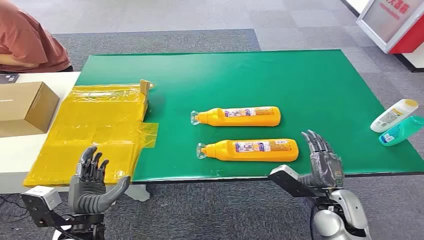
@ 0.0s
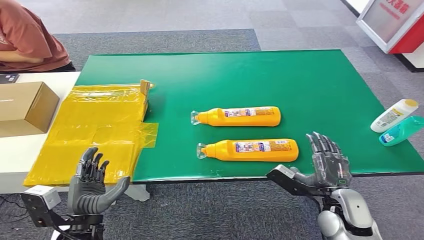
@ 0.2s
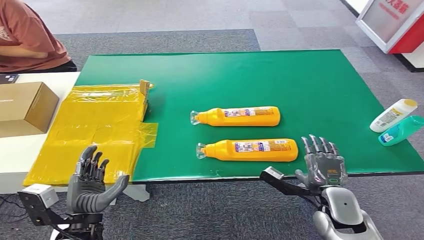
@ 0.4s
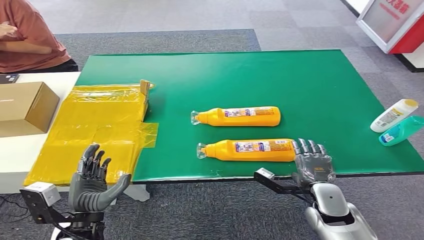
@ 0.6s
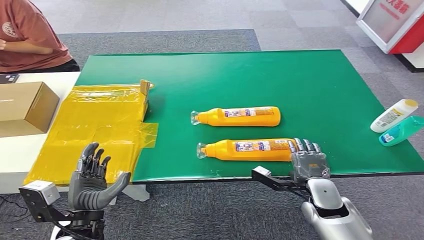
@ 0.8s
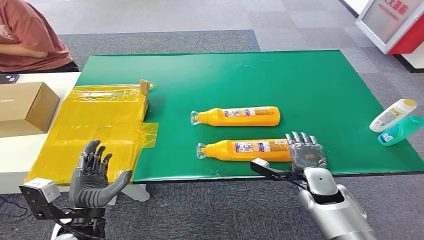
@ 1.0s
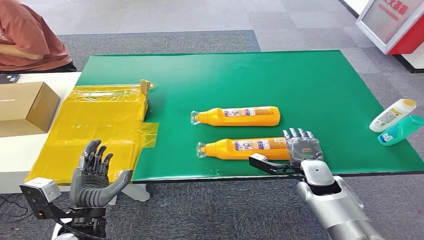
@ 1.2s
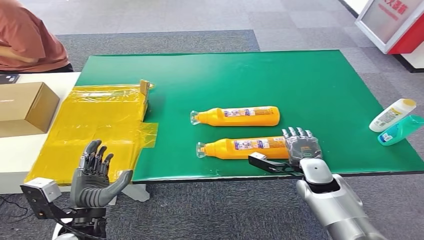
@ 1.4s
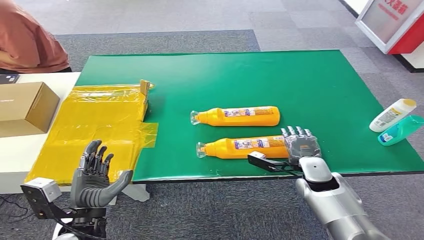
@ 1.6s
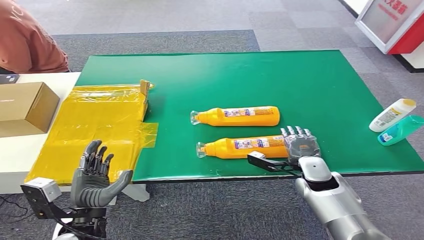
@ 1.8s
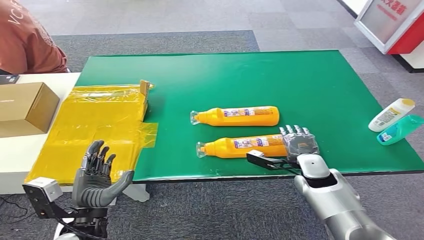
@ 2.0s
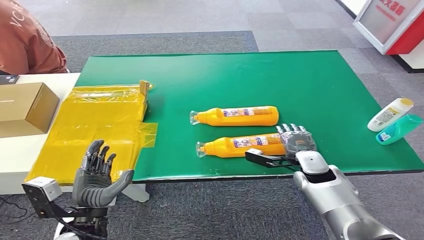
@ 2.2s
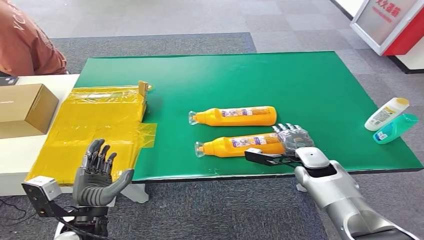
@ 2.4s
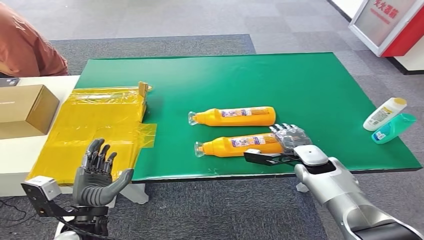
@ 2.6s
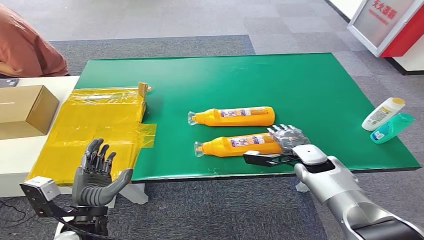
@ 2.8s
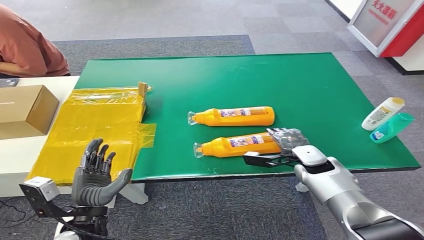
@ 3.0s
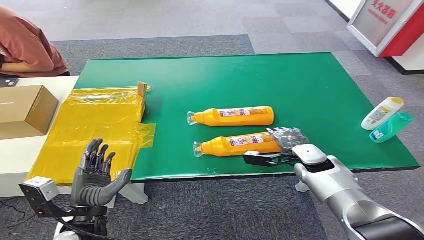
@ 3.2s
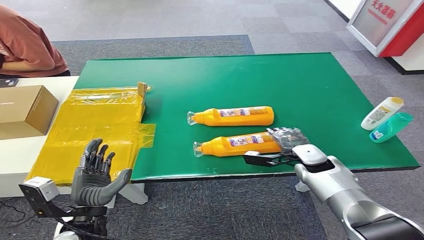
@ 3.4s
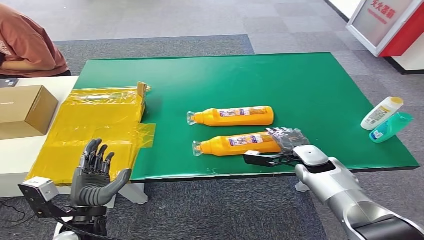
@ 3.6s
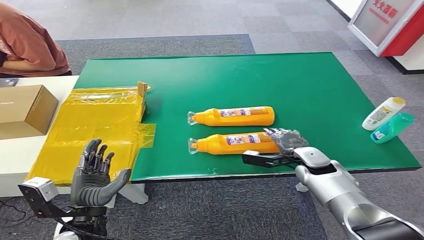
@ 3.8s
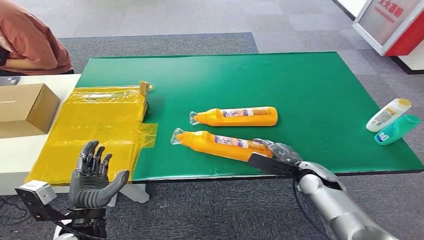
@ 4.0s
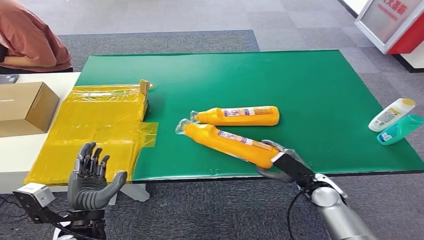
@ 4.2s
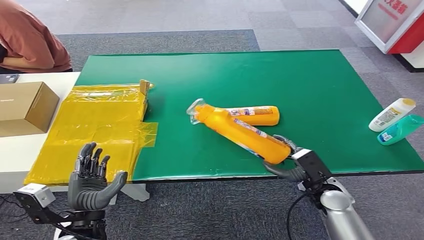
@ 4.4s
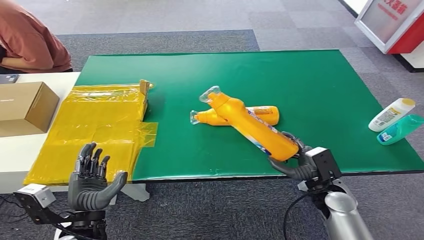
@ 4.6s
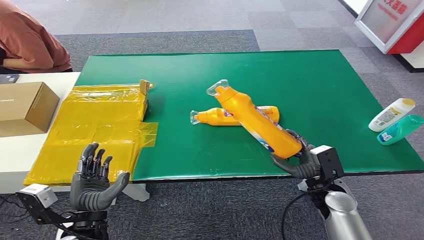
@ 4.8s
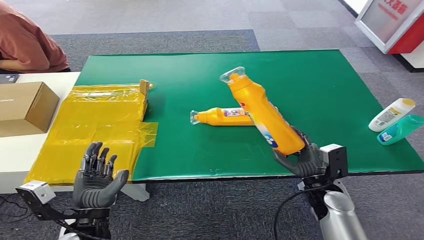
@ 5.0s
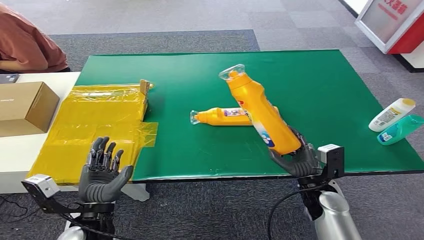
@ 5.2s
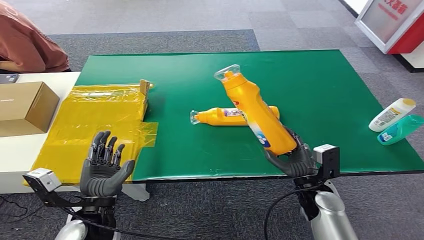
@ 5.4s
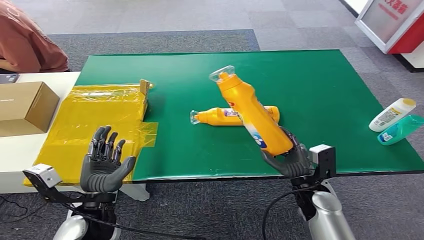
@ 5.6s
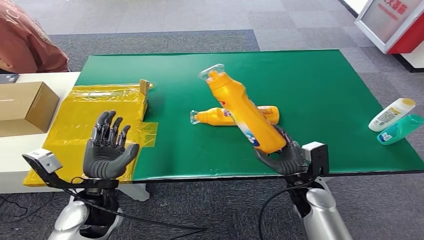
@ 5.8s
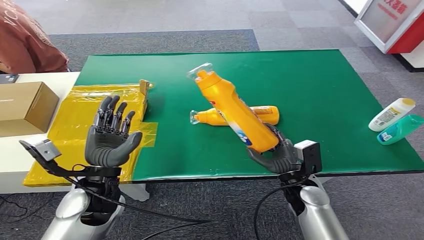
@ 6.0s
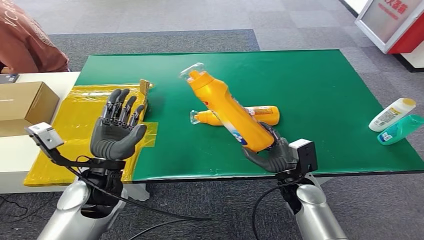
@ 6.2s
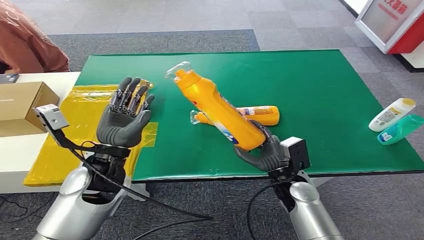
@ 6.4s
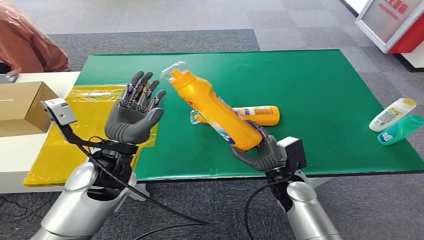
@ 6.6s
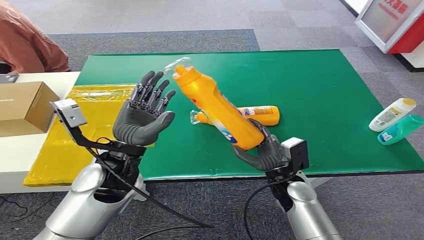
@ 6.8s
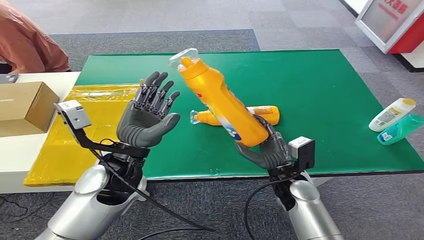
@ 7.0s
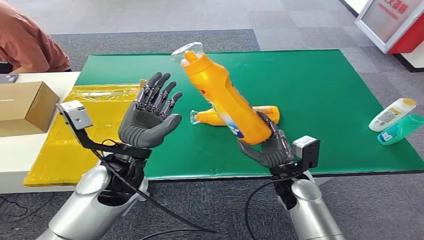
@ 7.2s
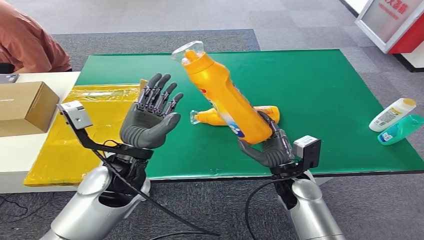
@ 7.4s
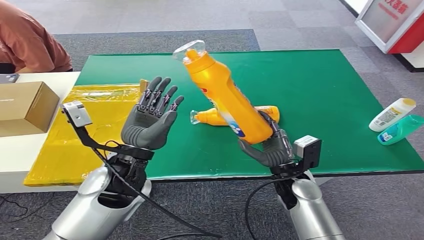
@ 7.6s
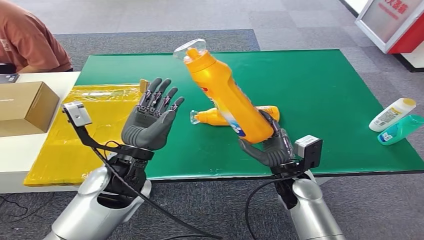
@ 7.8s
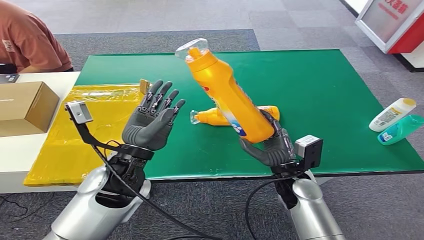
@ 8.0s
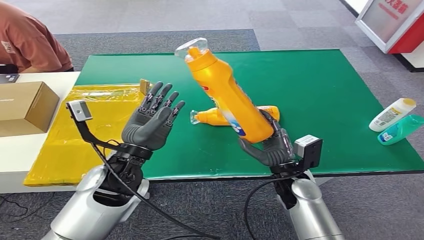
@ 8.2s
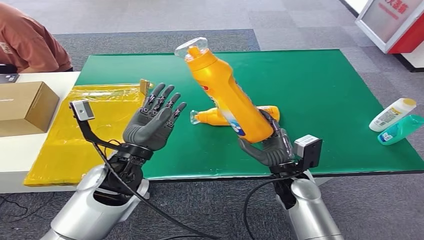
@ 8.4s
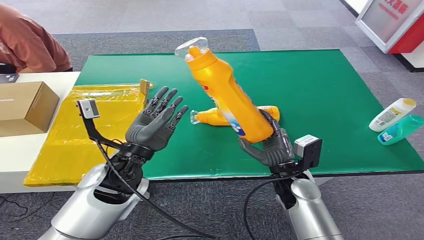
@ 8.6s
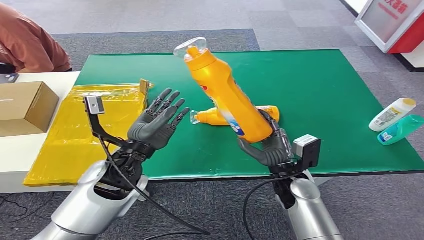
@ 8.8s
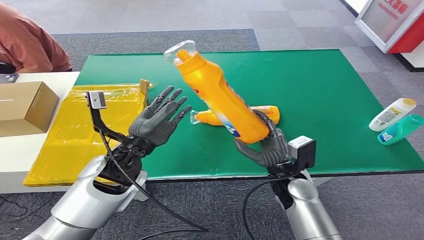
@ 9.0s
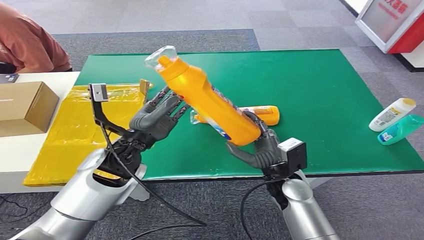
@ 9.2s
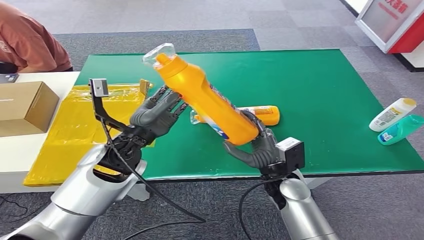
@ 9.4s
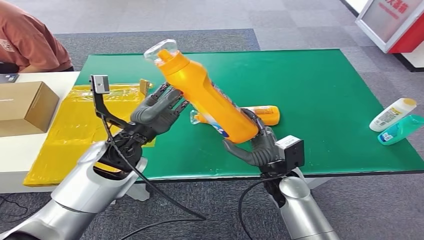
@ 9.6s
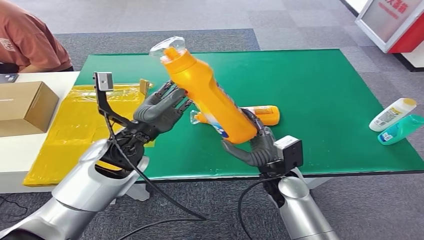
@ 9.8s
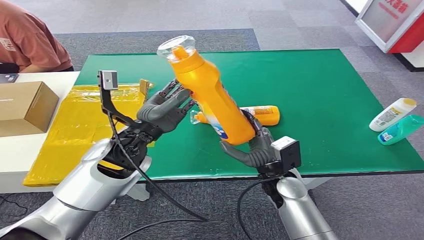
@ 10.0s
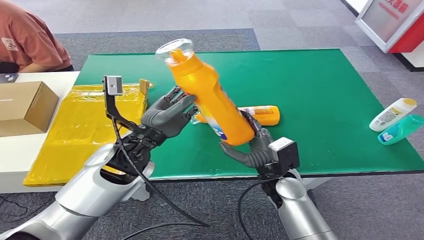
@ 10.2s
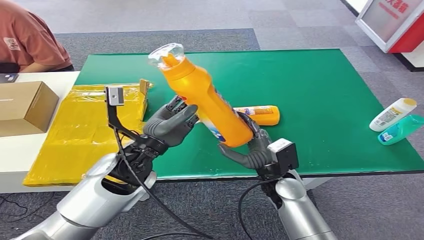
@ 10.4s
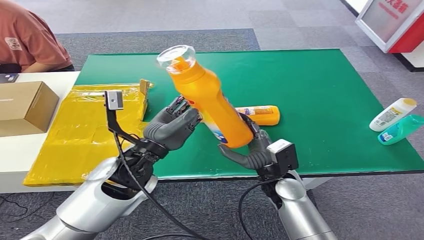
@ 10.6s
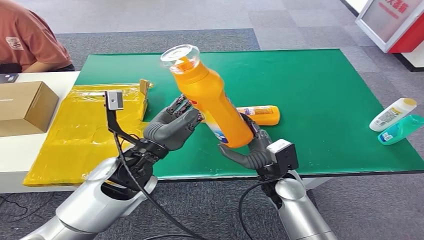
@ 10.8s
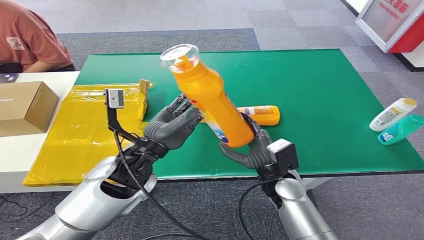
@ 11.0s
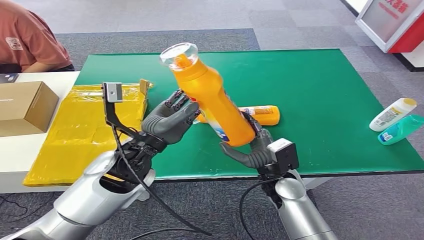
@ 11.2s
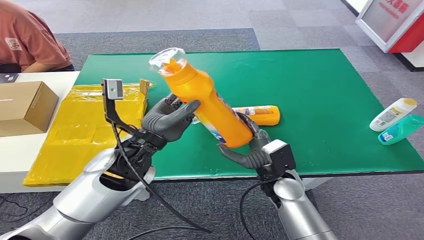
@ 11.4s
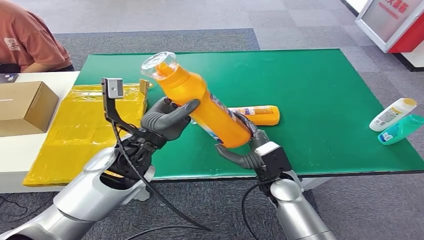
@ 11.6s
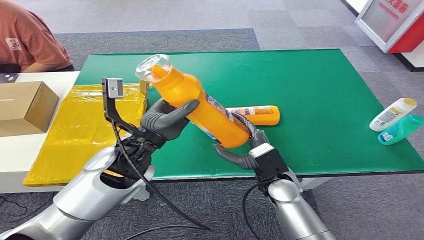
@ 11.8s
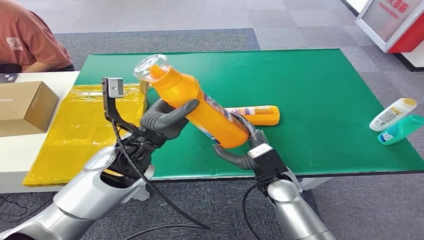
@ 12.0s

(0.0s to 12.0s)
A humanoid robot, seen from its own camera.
Step, 0.0s - 6.0s: Pick up the bottle from the table.
4.4s - 6.0s: The right hand is displaced to the left by approximately 5 cm; the left hand travels forward and upward by approximately 10 cm.
6.0s - 7.6s: The left hand moves to the right and upward, roughly 10 cm.
9.0s - 12.0s: There are only small adjustments of the hands.

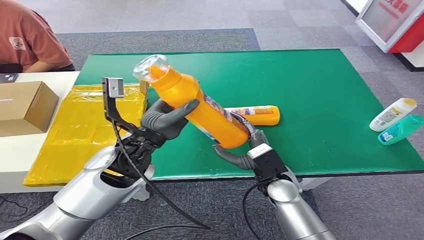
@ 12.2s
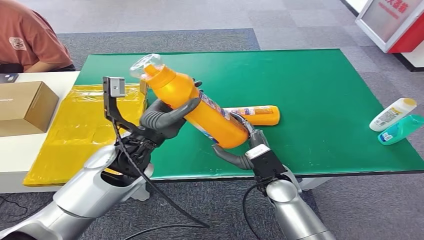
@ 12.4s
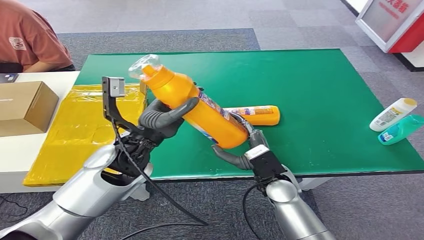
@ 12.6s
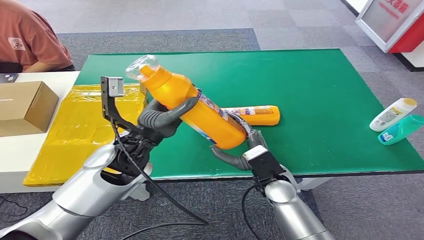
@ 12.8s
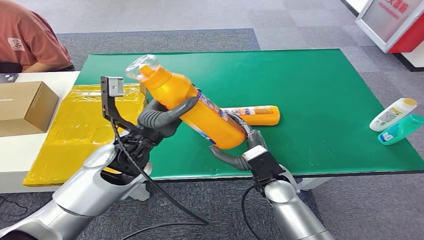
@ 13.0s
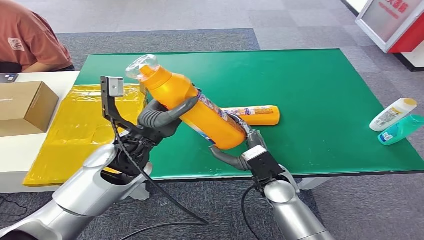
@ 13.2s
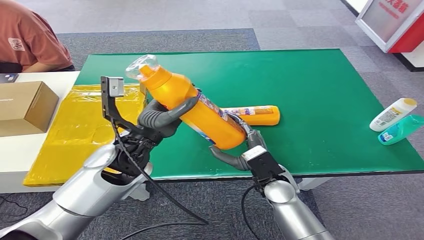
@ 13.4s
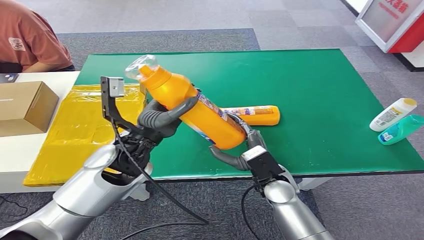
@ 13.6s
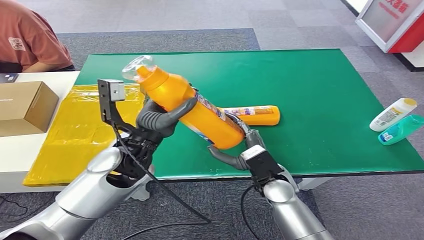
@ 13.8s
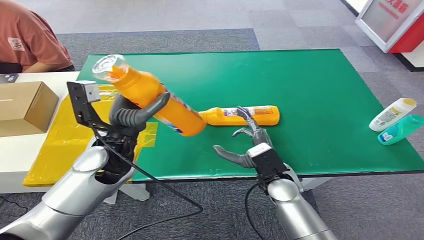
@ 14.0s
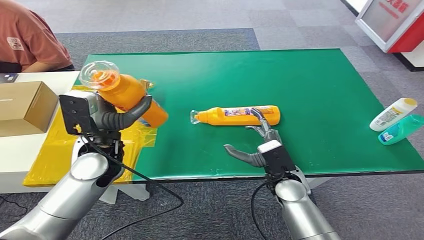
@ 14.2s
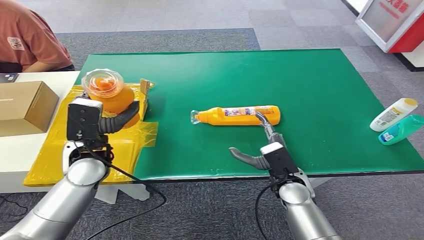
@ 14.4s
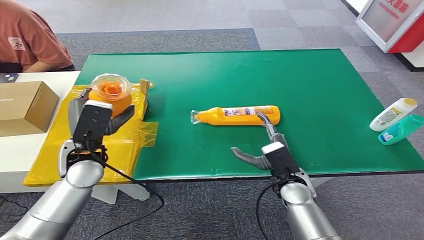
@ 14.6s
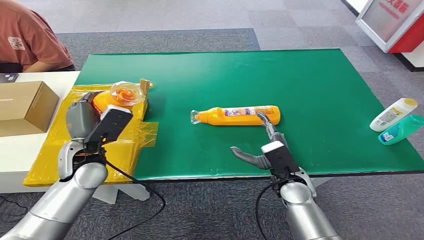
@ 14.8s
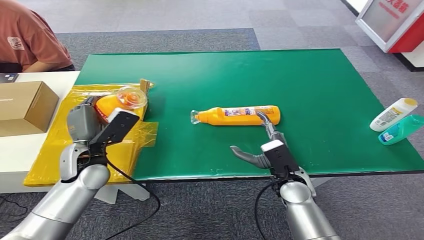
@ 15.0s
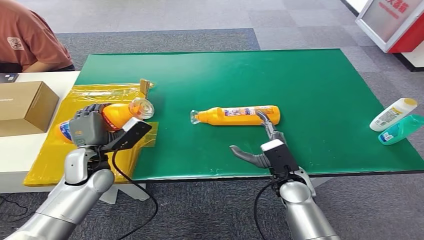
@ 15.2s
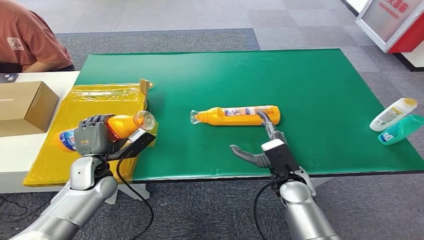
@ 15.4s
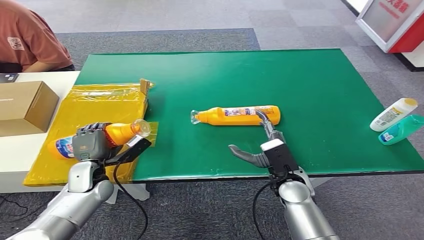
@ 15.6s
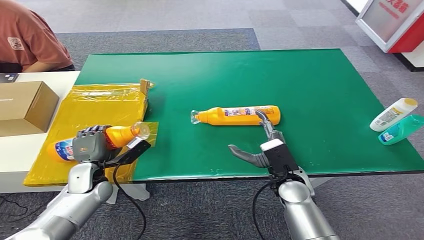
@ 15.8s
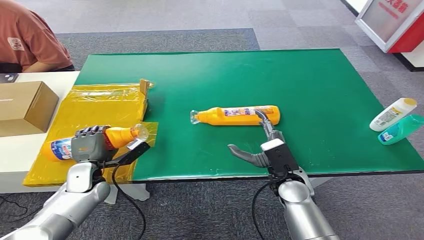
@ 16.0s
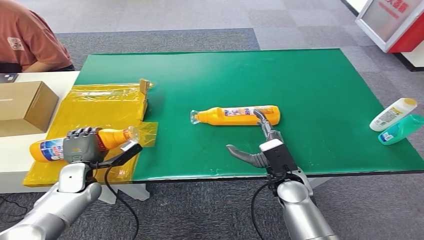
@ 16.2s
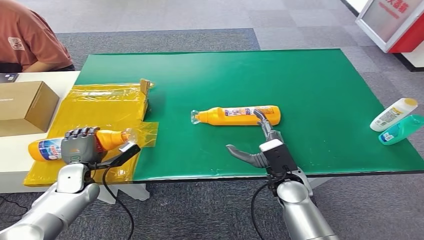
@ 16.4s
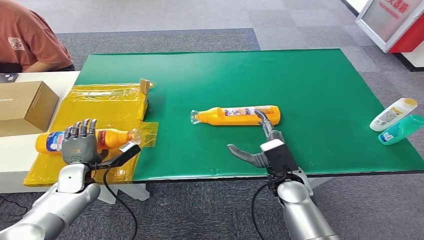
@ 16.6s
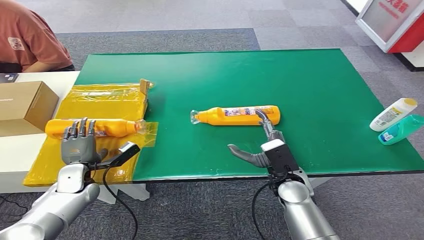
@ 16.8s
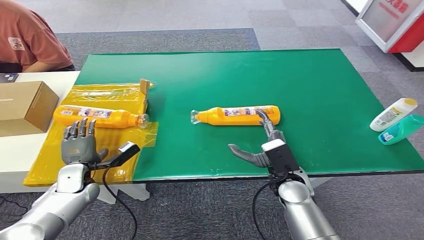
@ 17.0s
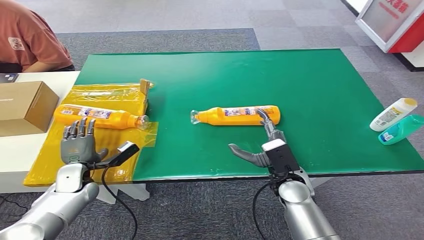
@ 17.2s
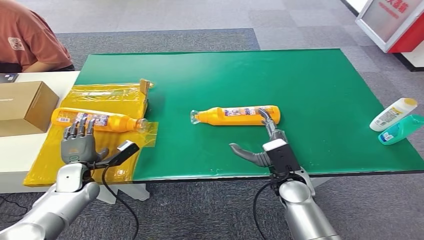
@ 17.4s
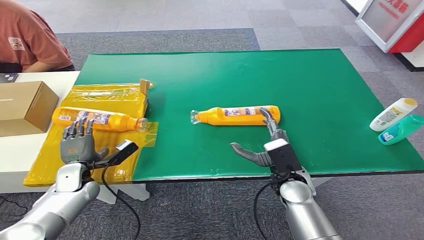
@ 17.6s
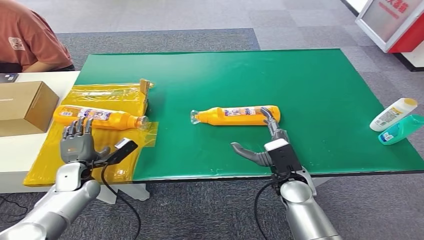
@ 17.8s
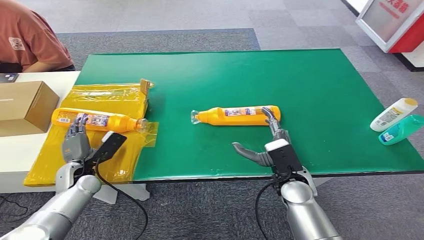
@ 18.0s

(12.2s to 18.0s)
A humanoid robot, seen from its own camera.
Step, 12.2s - 18.0s: Turn the bottle to the front side.
12.2s - 13.6s: There are only small adjustments of the hands.
13.6s - 15.0s: The left hand heads to the left and downward, covering roughly 15 cm.
15.0s - 16.6s: The left hand goes about 15 cm downward and to the left.
